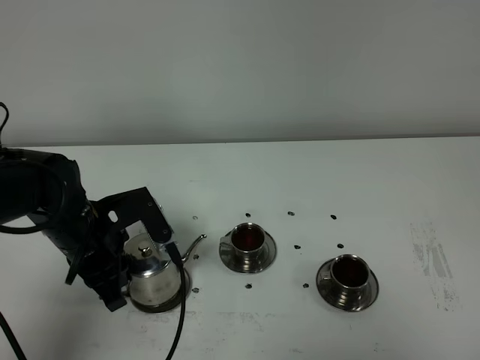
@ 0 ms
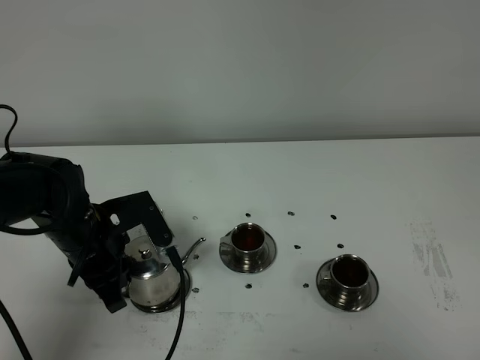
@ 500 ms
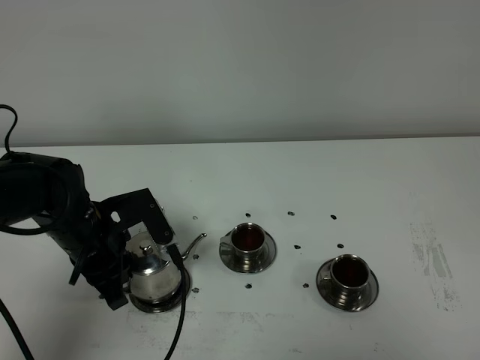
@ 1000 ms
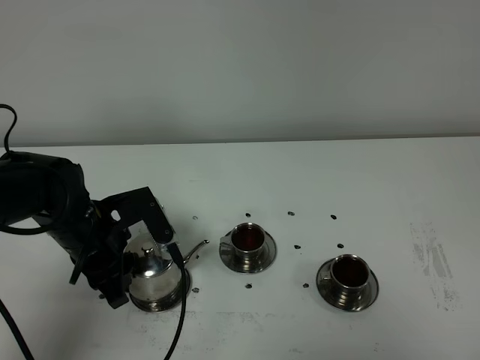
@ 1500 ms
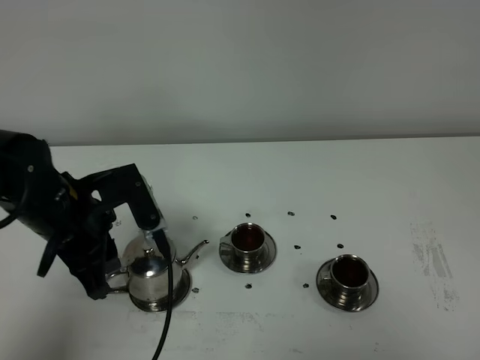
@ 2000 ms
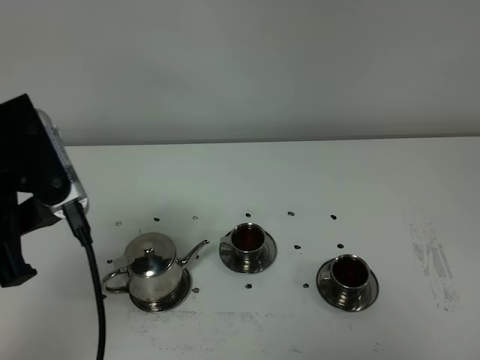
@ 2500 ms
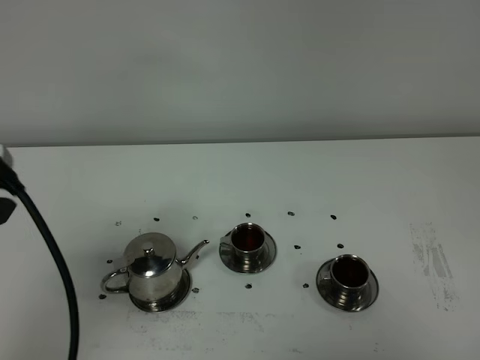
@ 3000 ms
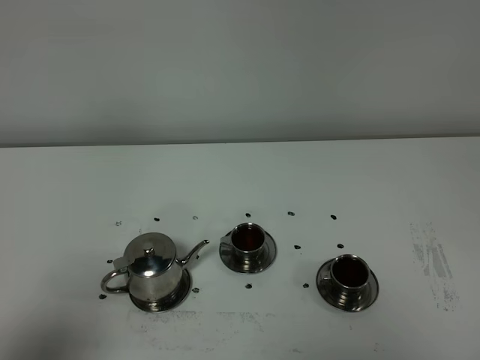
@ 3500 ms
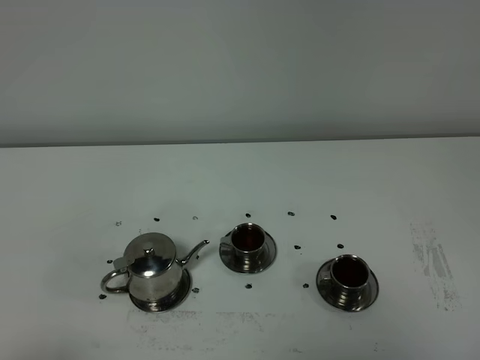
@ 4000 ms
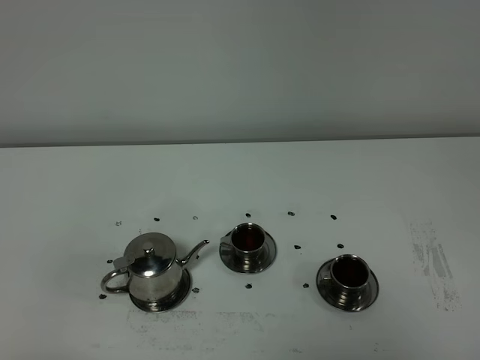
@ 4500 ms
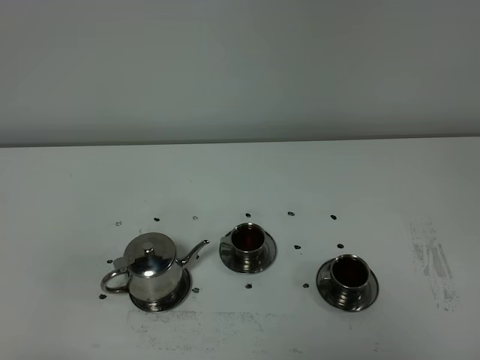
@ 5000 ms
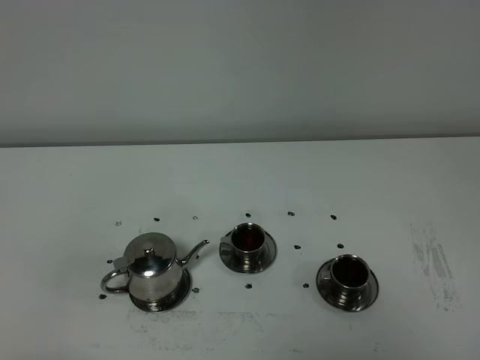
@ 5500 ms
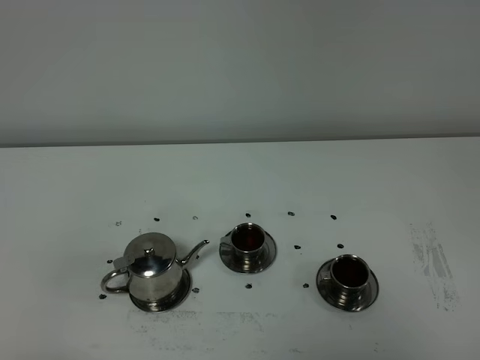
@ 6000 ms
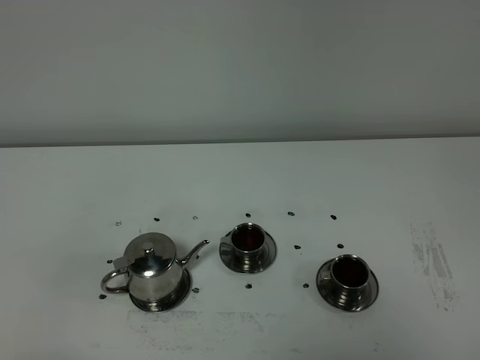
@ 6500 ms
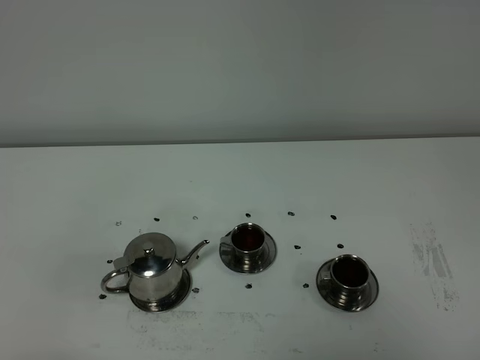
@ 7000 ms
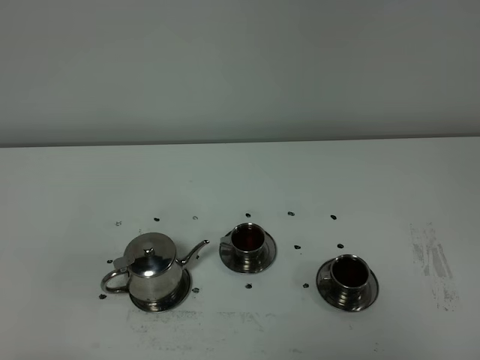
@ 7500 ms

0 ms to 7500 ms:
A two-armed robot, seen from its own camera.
Task of the whole recording: grasp the stainless steel teapot and pour the tea into the two stainless steel teacups one by one, put the stainless steel teapot back in its original place.
0 ms to 2000 ms: The left gripper is displaced upward by approximately 5 cm, and opens.
2000 ms to 4000 ms: The left gripper goes some 30 cm backward.
5500 ms to 7500 ms: The two grippers keep their place.
